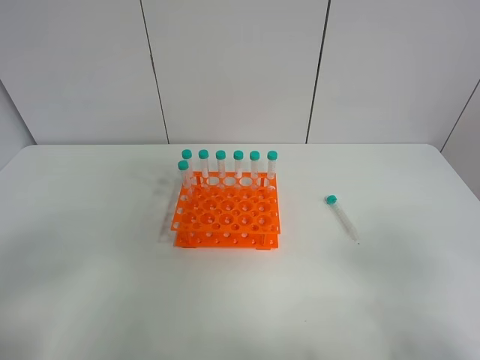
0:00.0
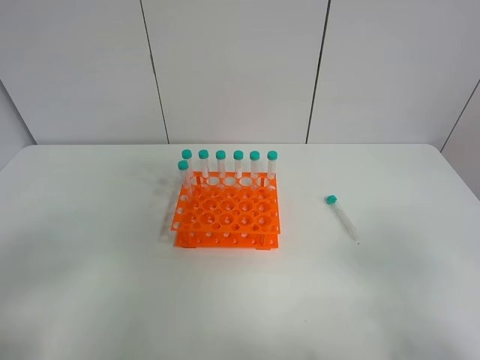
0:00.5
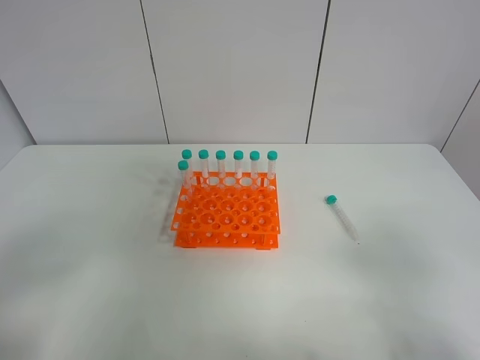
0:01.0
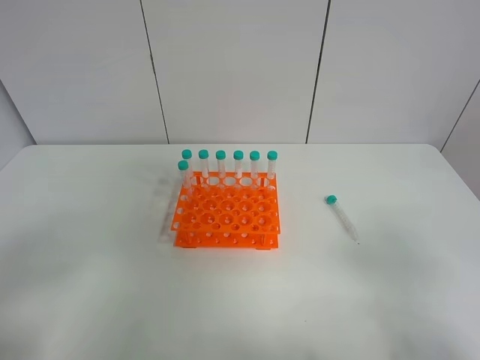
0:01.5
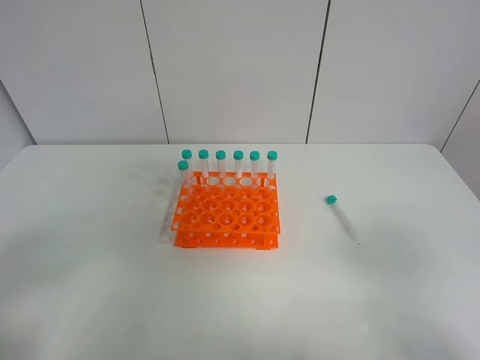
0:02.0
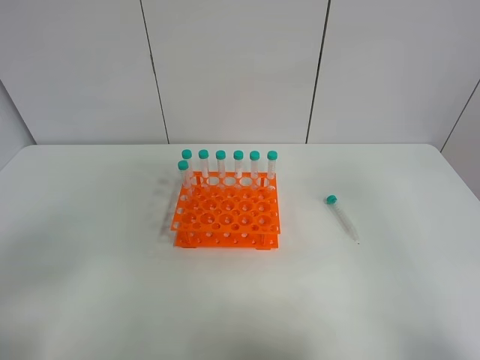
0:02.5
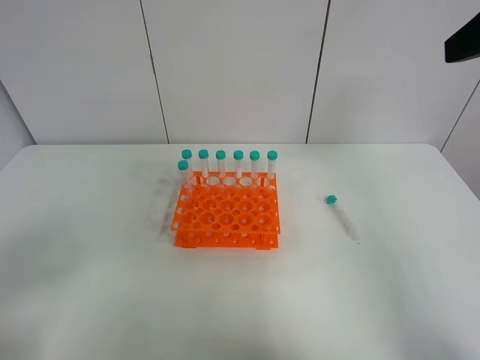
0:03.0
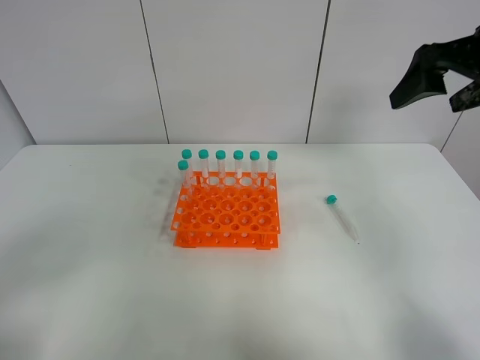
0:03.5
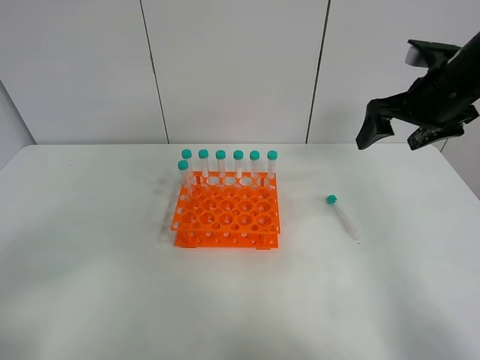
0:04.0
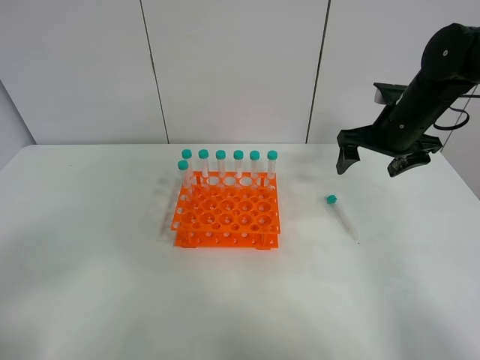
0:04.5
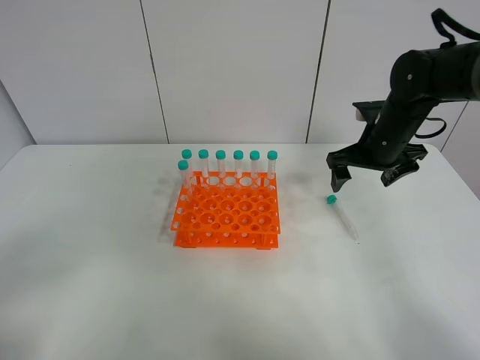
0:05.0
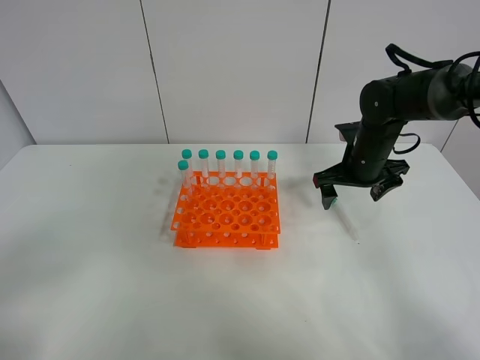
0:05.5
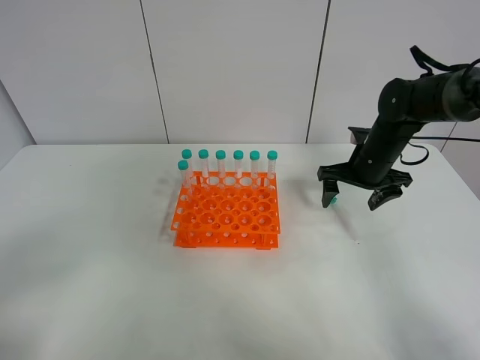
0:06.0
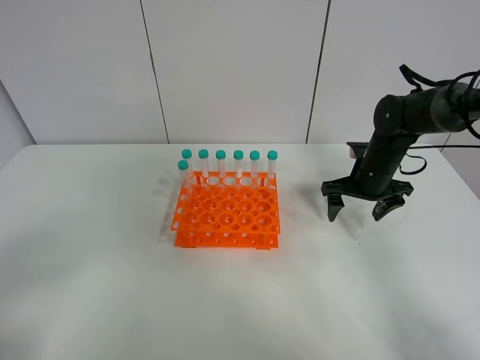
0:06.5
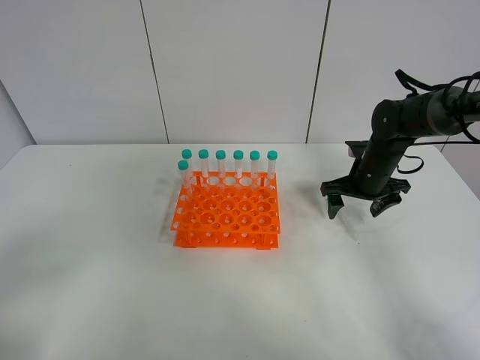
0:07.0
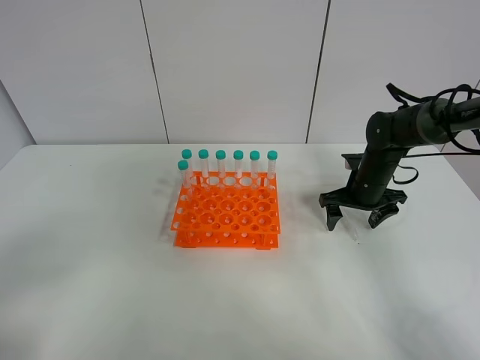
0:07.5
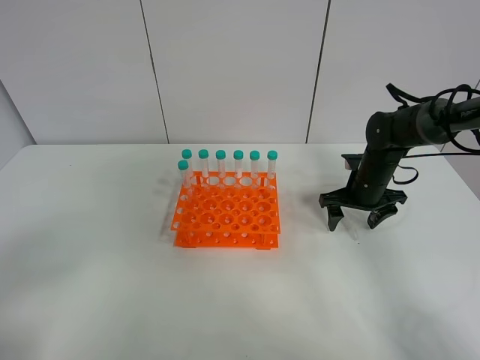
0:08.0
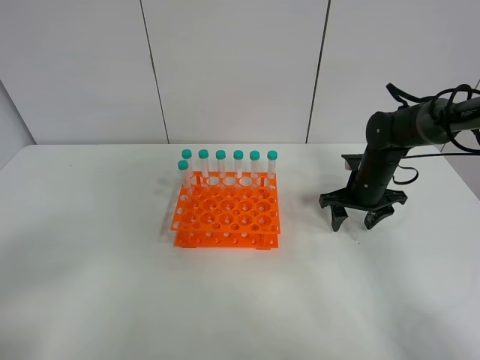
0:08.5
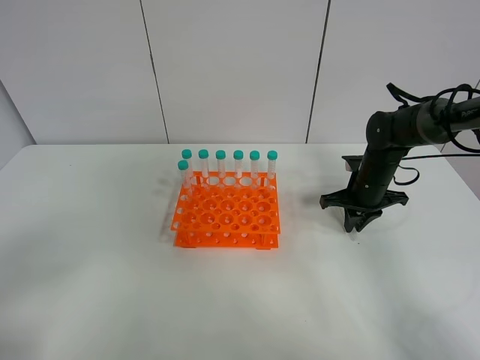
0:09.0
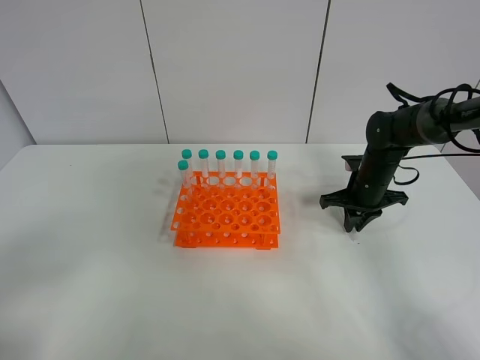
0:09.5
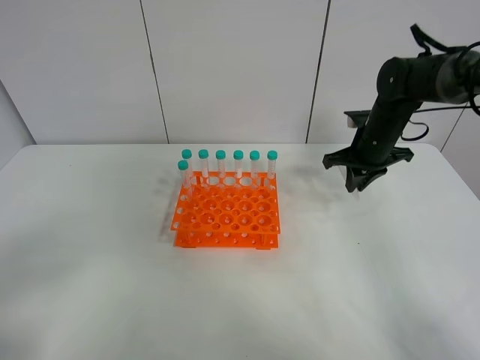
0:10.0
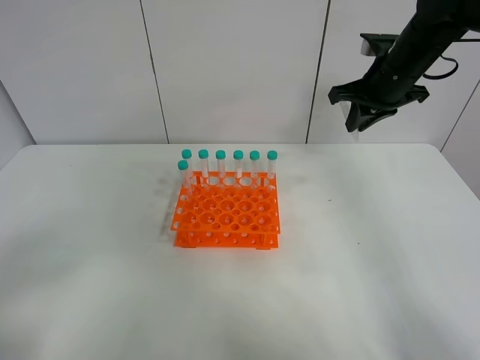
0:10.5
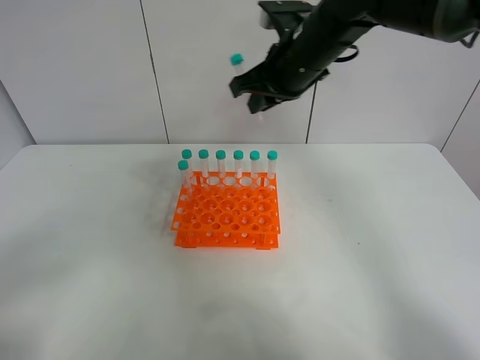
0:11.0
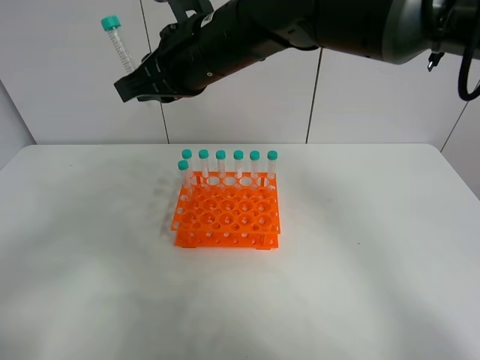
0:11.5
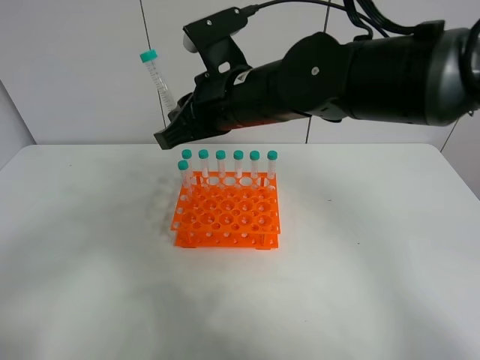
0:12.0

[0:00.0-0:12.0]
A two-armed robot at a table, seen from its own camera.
Task of the whole recording: Put the test tube on the table back onto the test tube rack.
Step, 0:00.0 to 0:10.0: Pick up the test tube with the right gripper.
0:02.0 to 0:04.0: The right gripper travels forward by about 35 cm.
0:04.0 to 0:06.0: The right gripper moves downward, approximately 15 cm.
0:06.0 to 0:08.0: The right gripper is displaced downward by about 5 cm.
0:08.0 to 0:10.0: The right gripper shifts about 10 cm upward, and closes.
0:10.0 to 0:12.0: The right gripper travels to the left, backward and upward by about 30 cm.

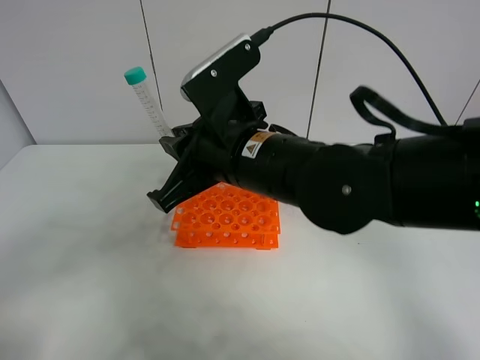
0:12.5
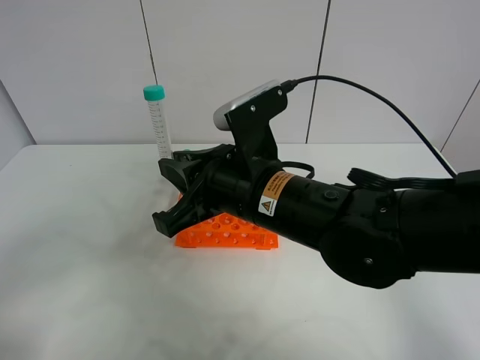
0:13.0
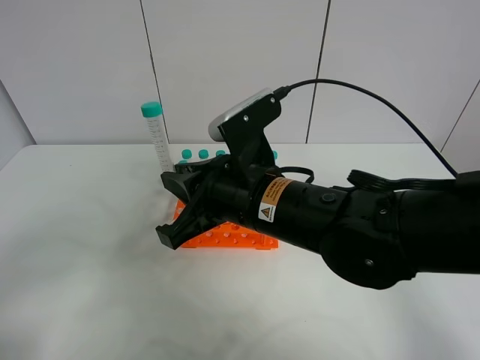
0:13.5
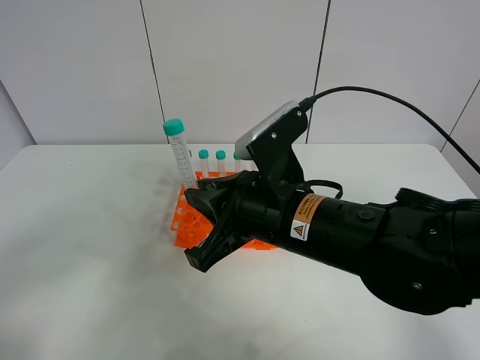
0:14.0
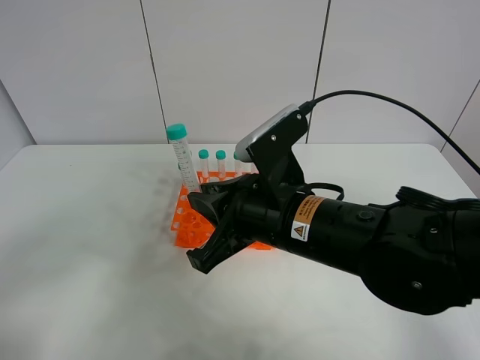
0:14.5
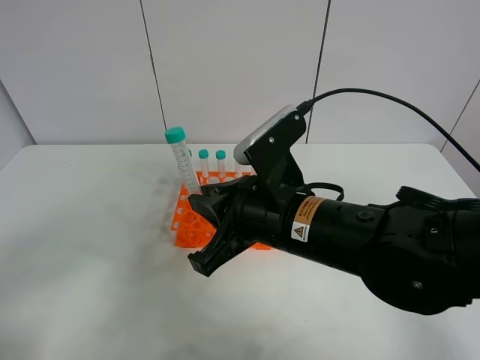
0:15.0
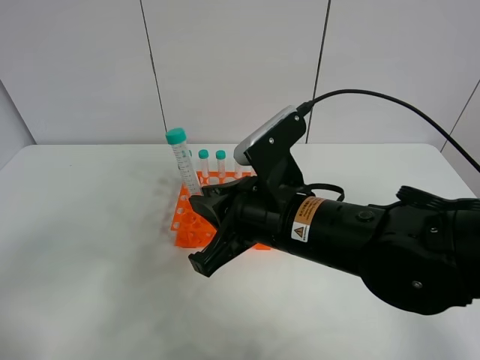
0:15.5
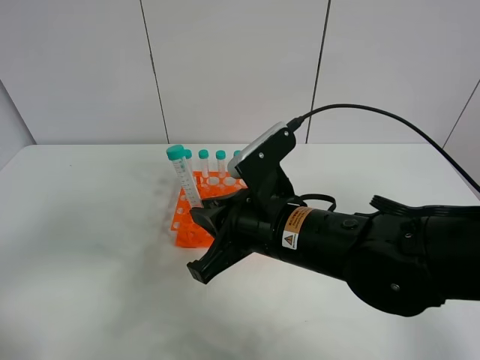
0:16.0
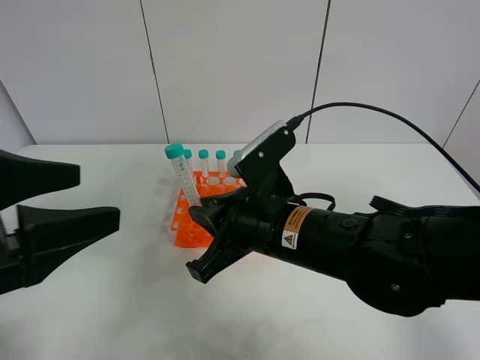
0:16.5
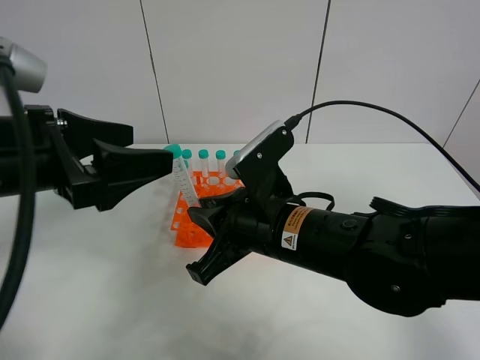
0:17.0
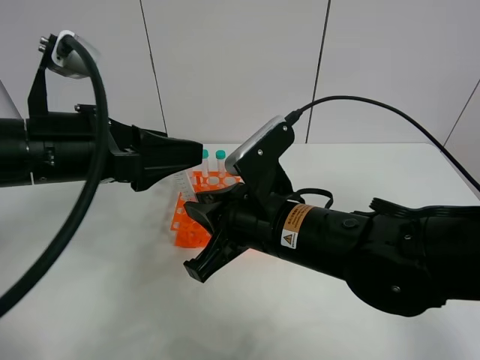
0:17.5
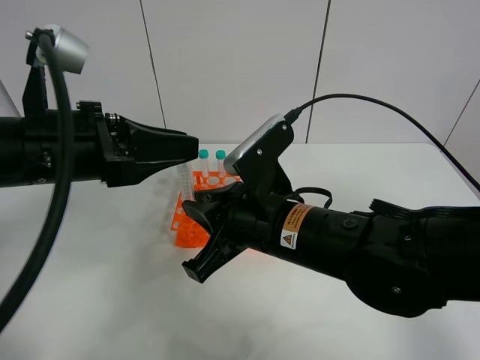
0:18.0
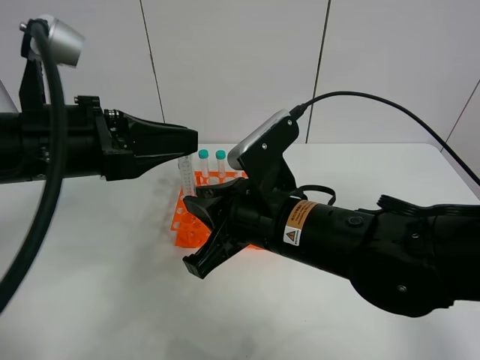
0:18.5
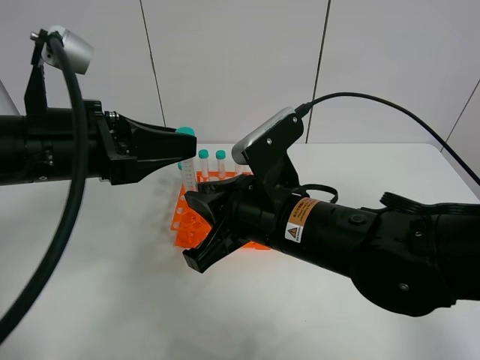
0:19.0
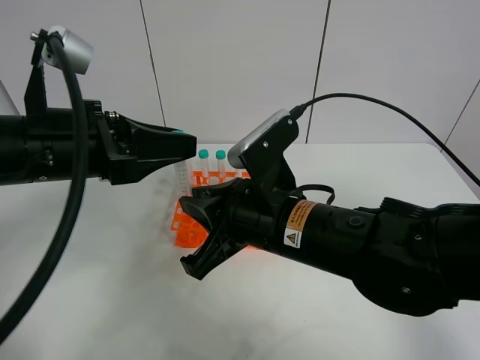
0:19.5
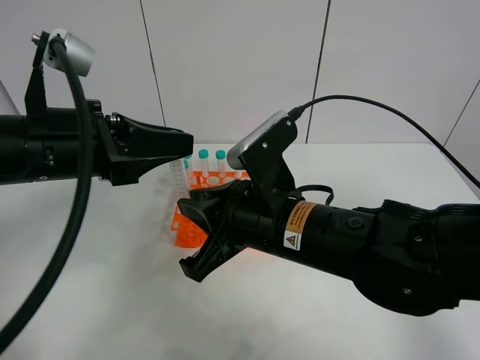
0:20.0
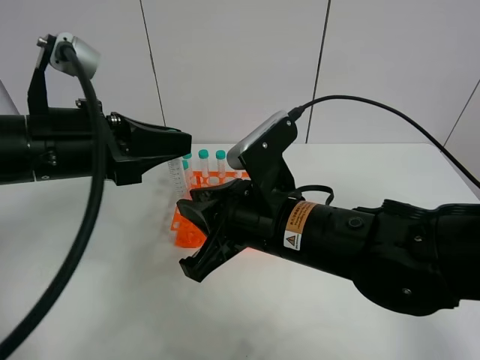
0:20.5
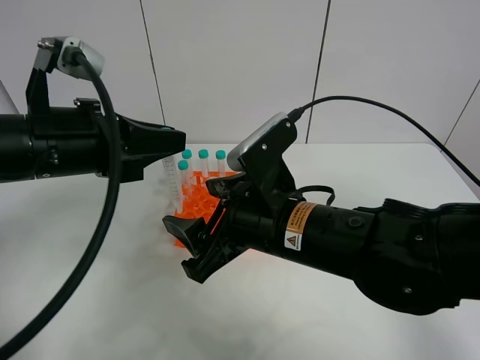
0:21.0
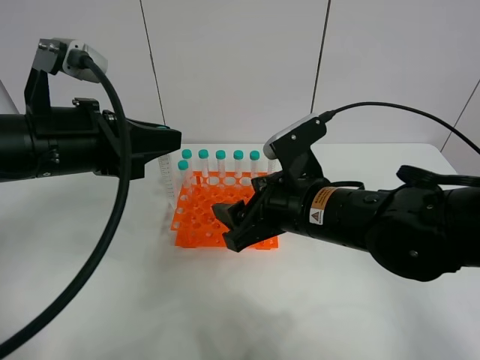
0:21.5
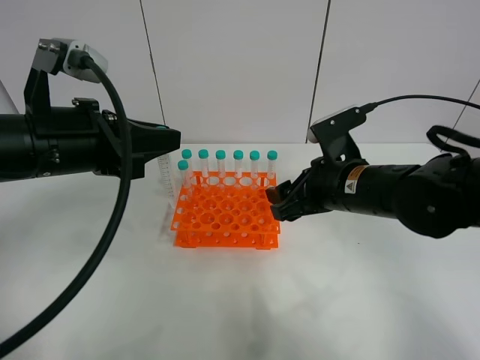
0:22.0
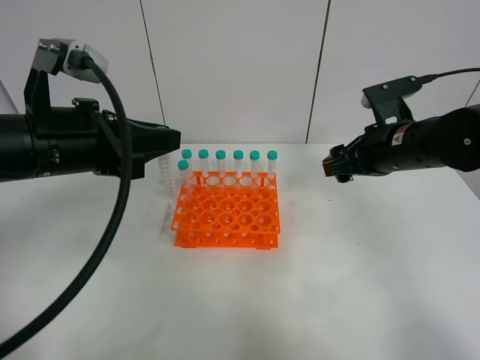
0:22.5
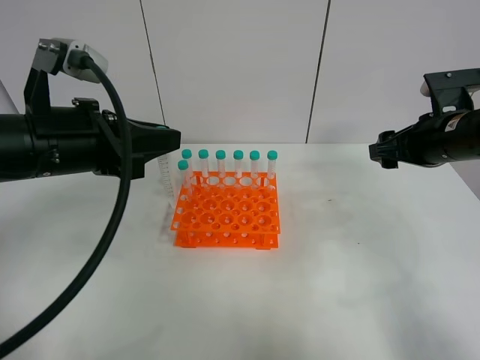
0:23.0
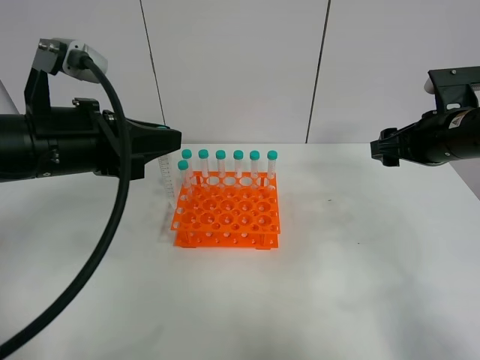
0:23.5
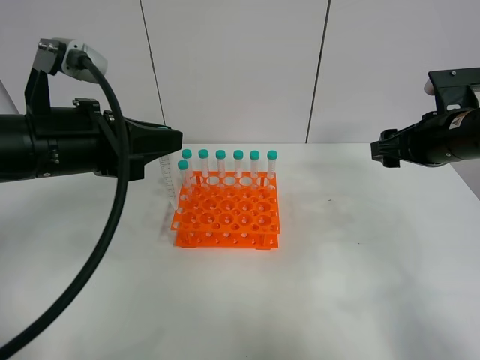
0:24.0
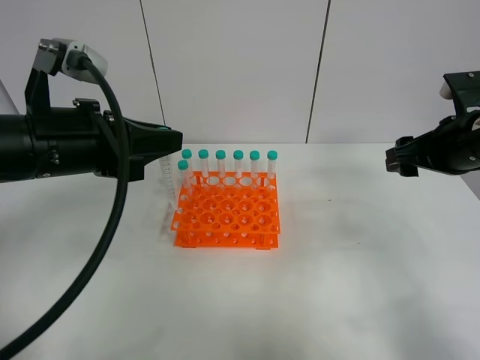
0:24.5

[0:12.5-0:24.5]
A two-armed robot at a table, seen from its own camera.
Task of the whole recording: Put the test tube on the table back onto the test tube rack.
Step, 0:12.5 to 0:21.5: Move the test tube from the right gripper to the left gripper.
0:12.5 to 0:14.5: The right gripper changes place by some 5 cm.
0:14.5 to 0:16.5: The left gripper moves forward and to the right, roughly 15 cm.
0:16.5 to 0:18.5: The left gripper moves forward, roughly 10 cm, and closes up.
0:18.5 to 0:20.5: The grippers stay close to where they were, moving slightly.
0:20.5 to 0:22.5: The right gripper shifts roughly 20 cm to the right and forward, and opens.
0:22.5 to 0:24.5: The right gripper heads to the right, covering approximately 5 cm.

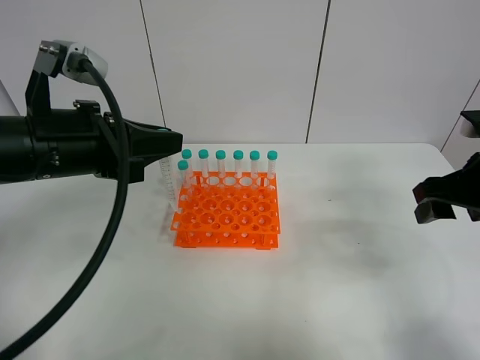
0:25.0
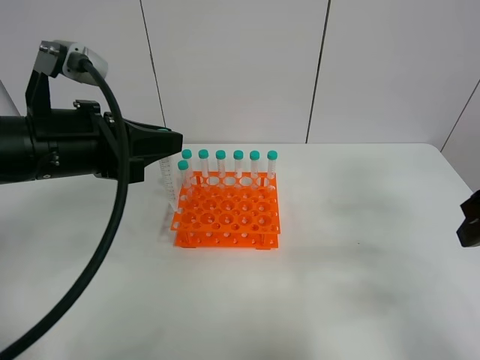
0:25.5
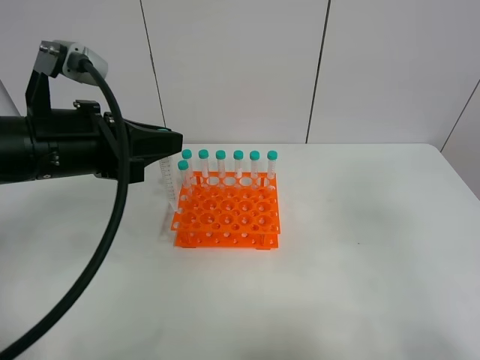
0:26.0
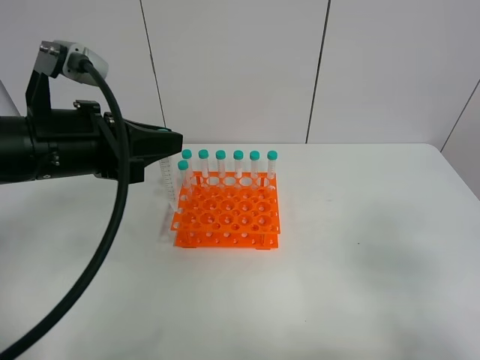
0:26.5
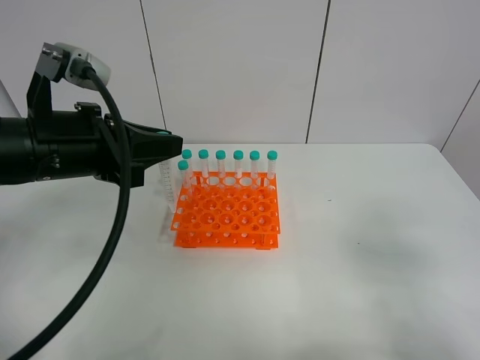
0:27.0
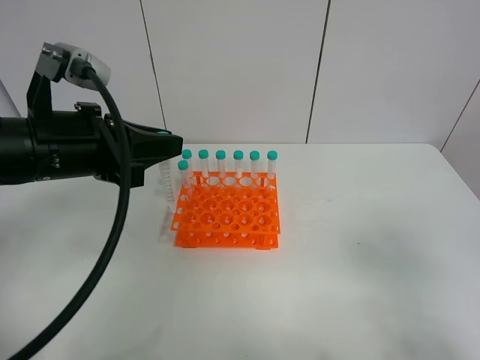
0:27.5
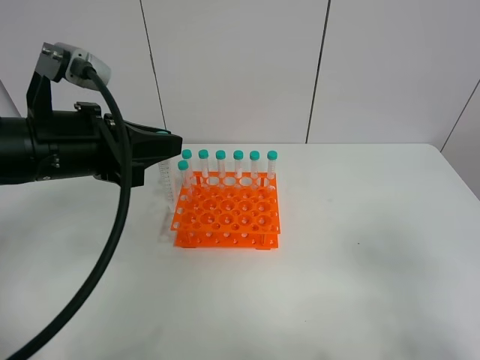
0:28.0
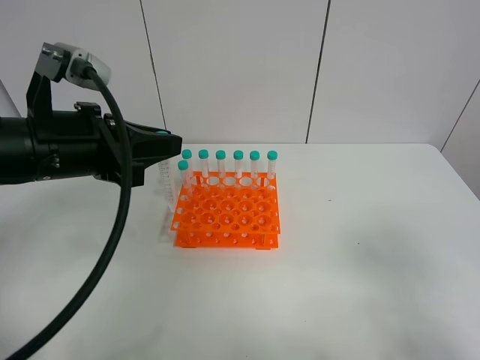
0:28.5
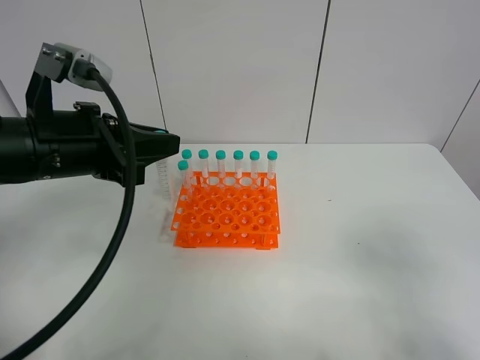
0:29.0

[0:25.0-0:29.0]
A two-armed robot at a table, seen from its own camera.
Task of the whole recording: Put the test tube on the table back onto the test tube rack.
0:25.0 to 0:27.0: The right gripper goes roughly 20 cm backward.
0:27.0 to 0:29.0: There are only small adjustments of the grippers.
